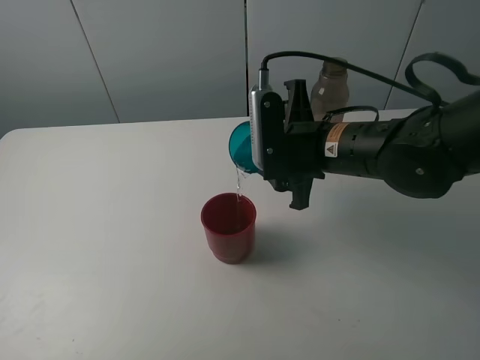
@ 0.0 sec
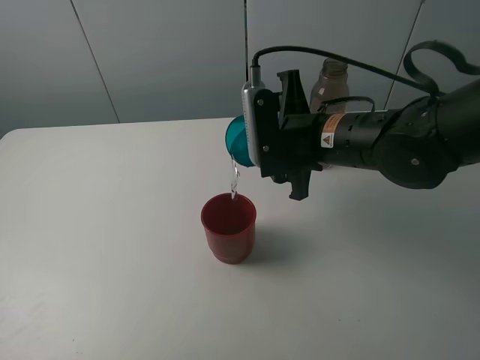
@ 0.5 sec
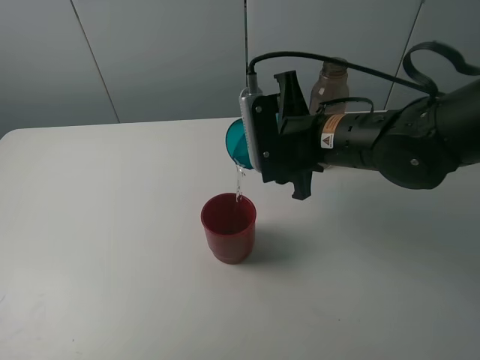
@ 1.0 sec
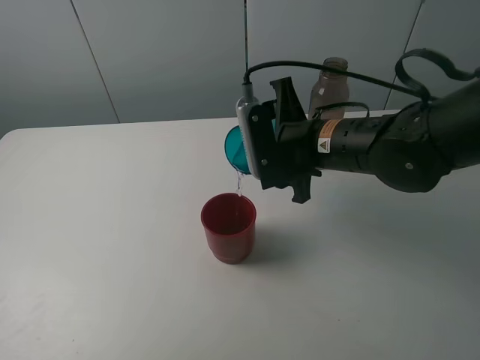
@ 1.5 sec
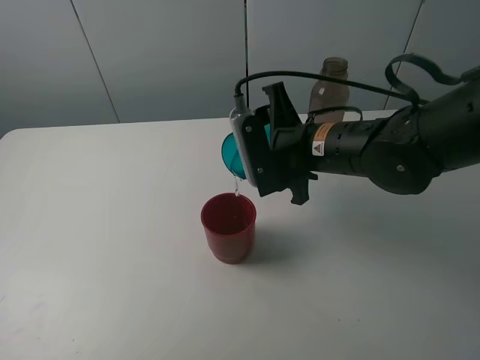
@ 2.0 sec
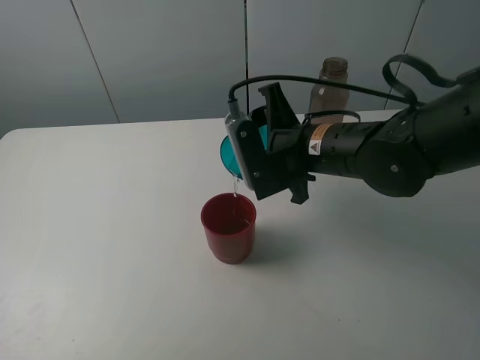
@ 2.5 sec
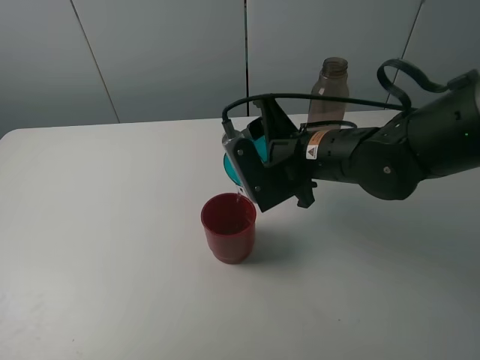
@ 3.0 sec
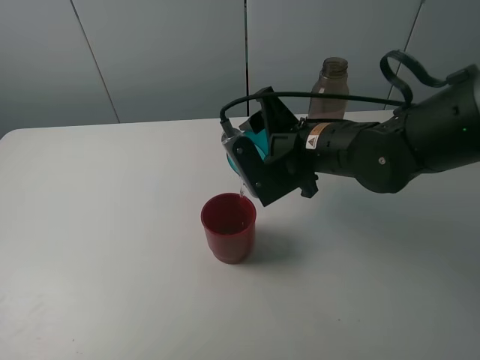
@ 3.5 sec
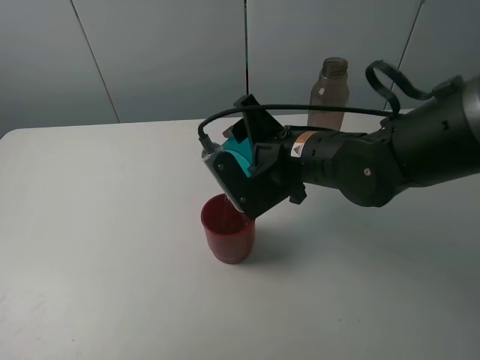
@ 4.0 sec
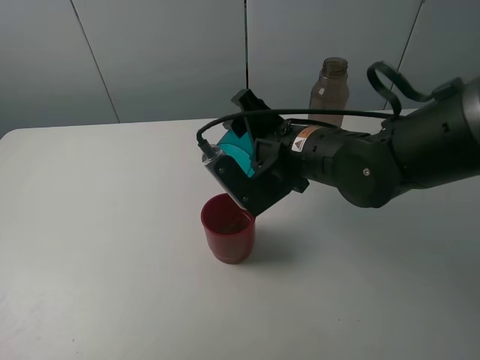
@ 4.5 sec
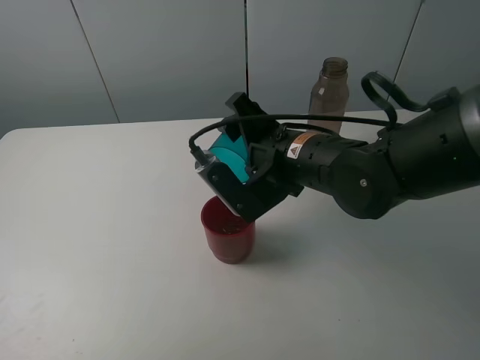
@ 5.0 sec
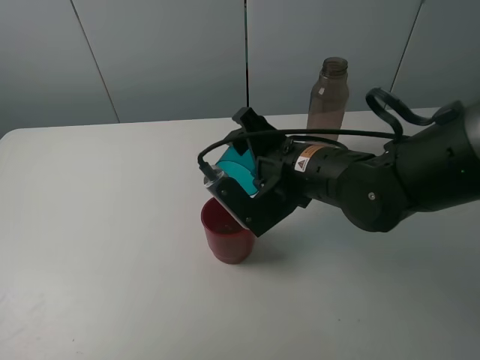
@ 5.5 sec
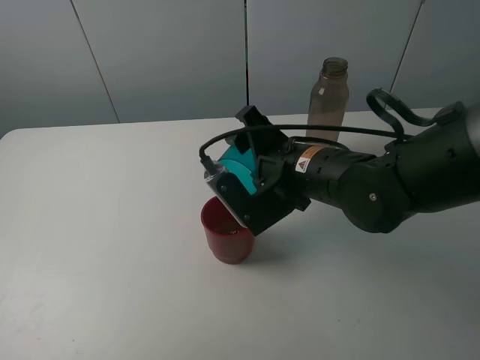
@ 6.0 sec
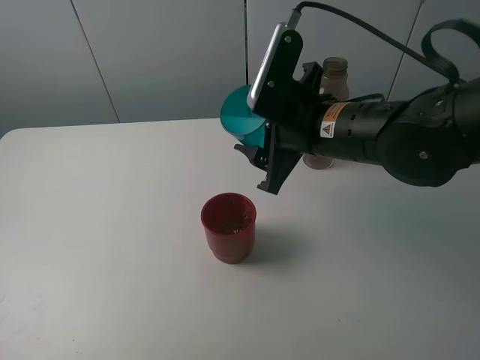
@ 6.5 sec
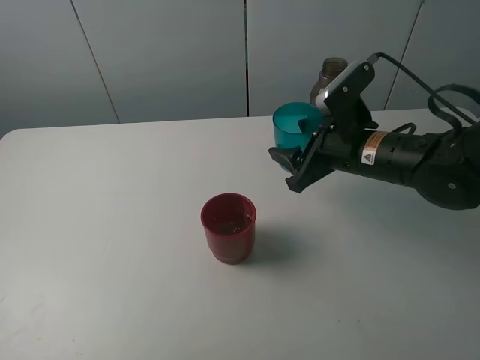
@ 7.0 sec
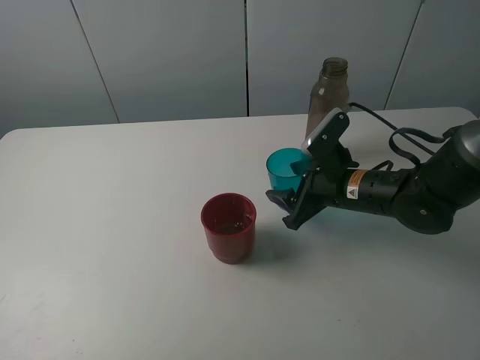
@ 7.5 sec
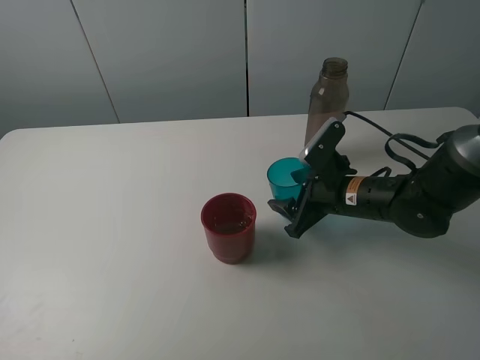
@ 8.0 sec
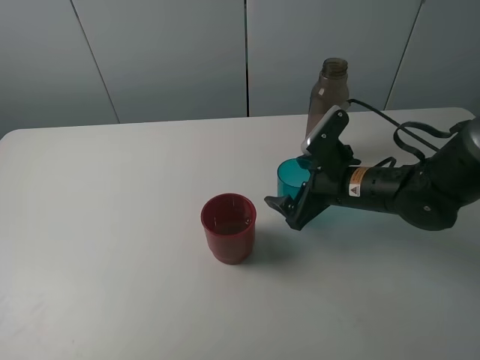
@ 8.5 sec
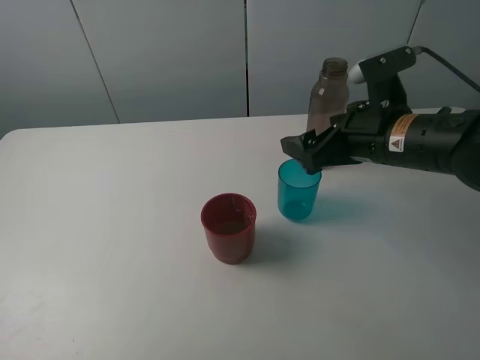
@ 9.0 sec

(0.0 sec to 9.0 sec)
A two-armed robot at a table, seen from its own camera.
Task of the whole recording: pick up the bottle and pour water into the cup, then pick up the cup containing water and pour it into another cup.
Step, 0.0 sec - 4.5 sec: Pour water from blue cup to red cup with the right gripper.
Step, 5.0 sec - 8.5 sec: Place the blue cup with the right gripper.
0.0 sec - 2.0 sec: The grippers move only a little.
4.5 sec - 7.0 sec: The right gripper shifts some 10 cm to the right.
7.0 sec - 9.0 sec: The right gripper goes some 5 cm upward, and opens up.

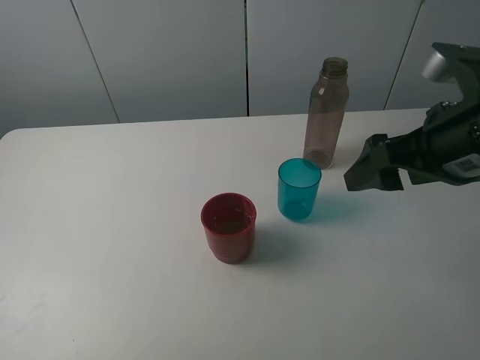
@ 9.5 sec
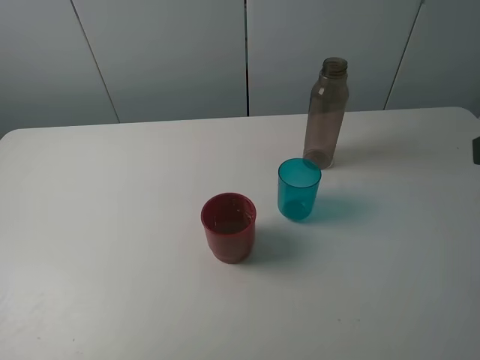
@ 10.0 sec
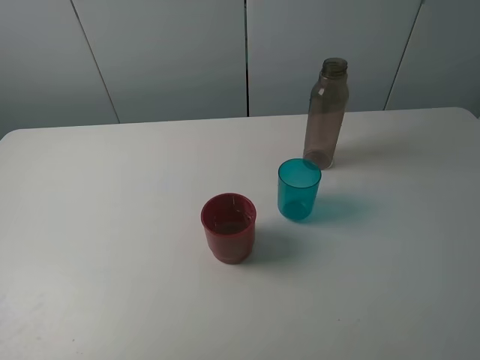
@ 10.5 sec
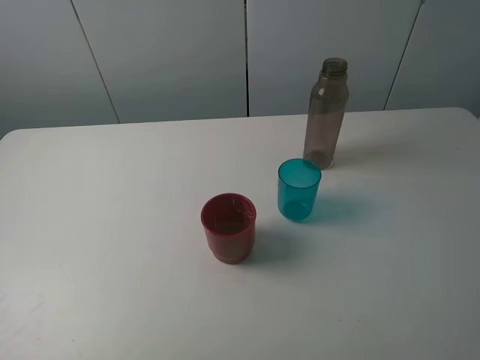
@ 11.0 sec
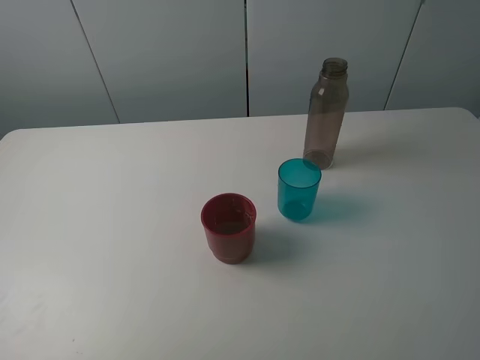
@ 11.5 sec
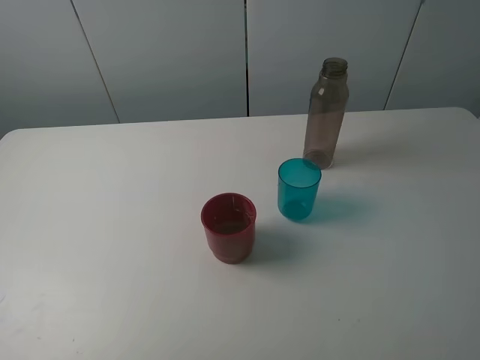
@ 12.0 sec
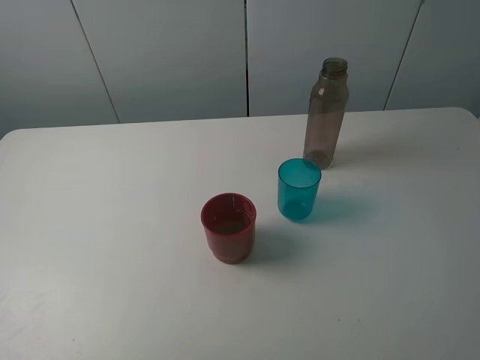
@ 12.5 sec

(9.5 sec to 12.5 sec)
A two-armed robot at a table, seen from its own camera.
Task of the whole recording: pick up the bottle and pour water into the cup, then pick up the cup containing water and pour it into another cup.
9.5 sec - 11.0 sec: The right gripper heads backward and to the right, covering roughly 20 cm.
